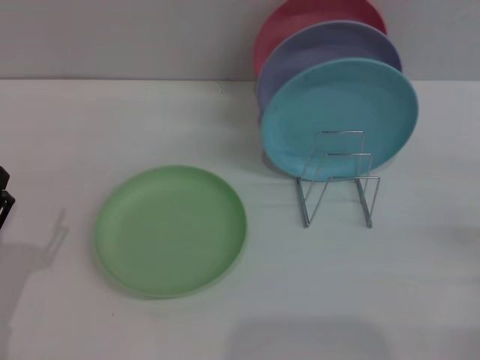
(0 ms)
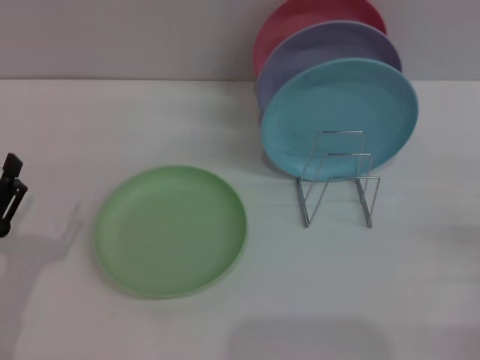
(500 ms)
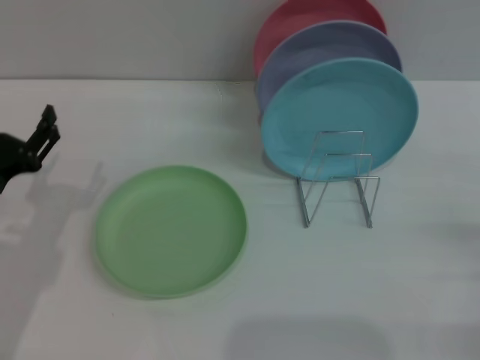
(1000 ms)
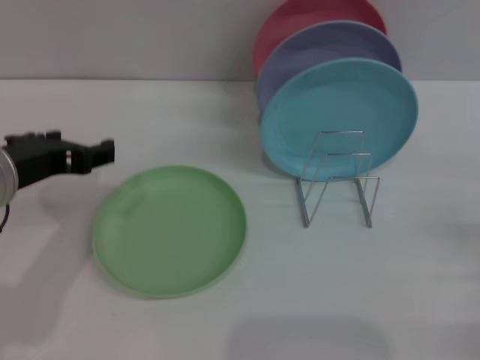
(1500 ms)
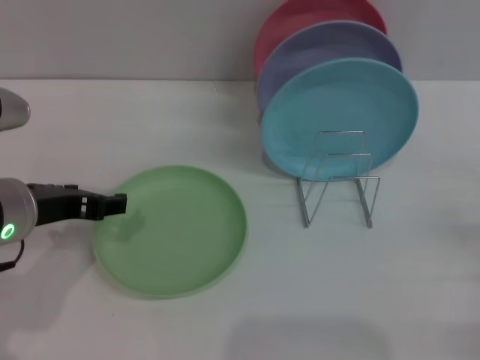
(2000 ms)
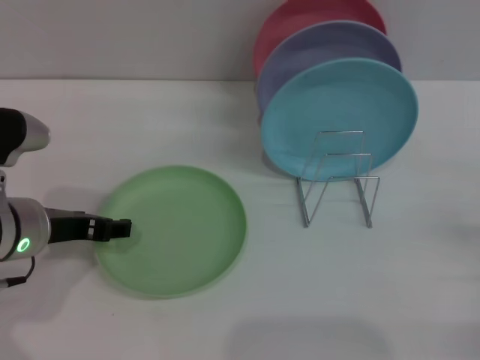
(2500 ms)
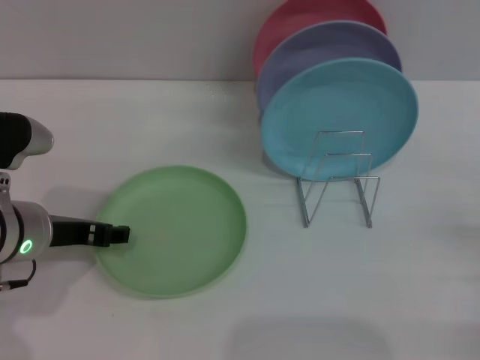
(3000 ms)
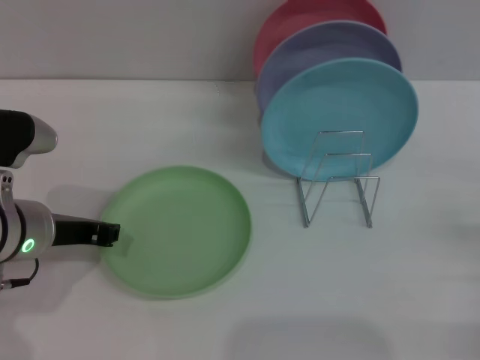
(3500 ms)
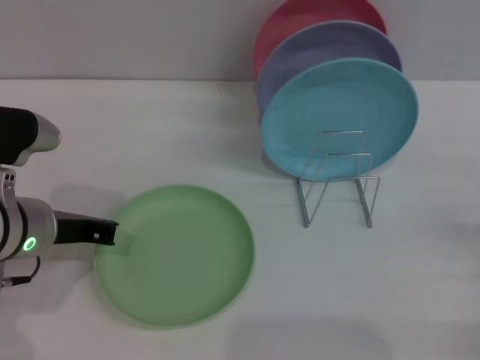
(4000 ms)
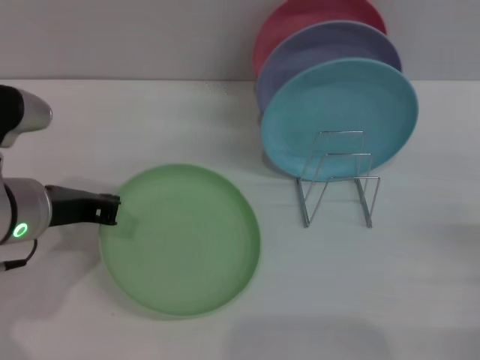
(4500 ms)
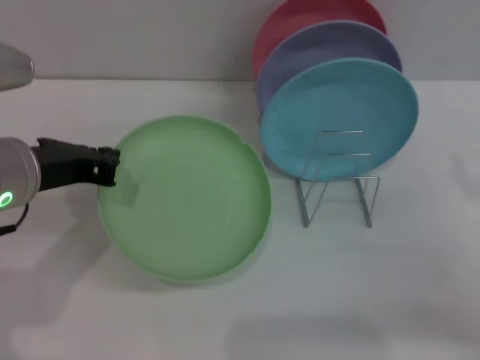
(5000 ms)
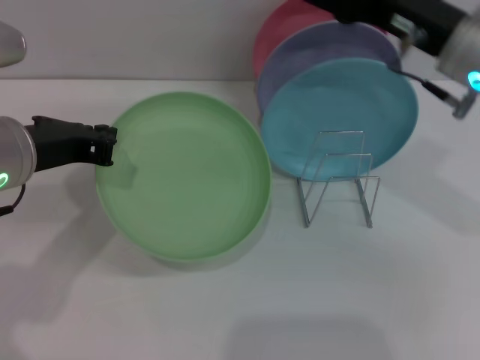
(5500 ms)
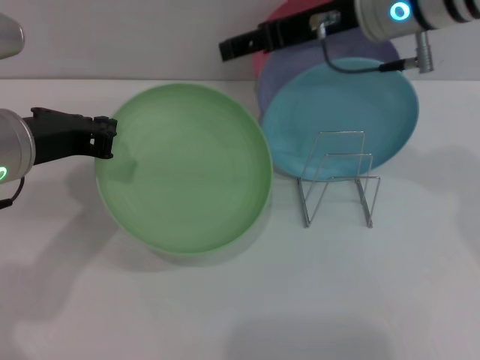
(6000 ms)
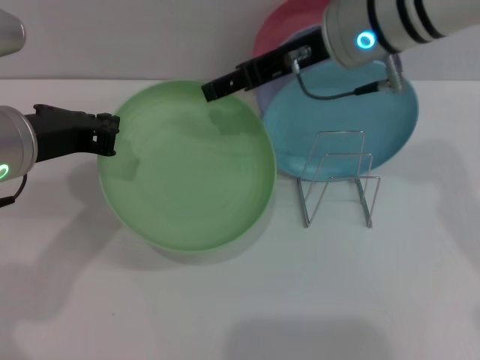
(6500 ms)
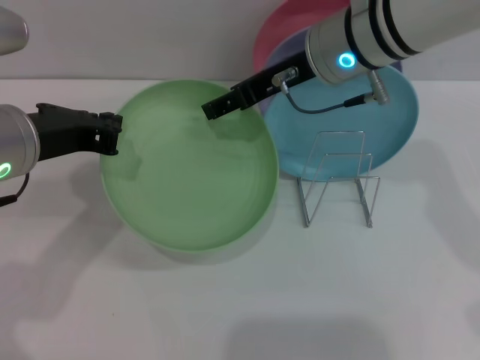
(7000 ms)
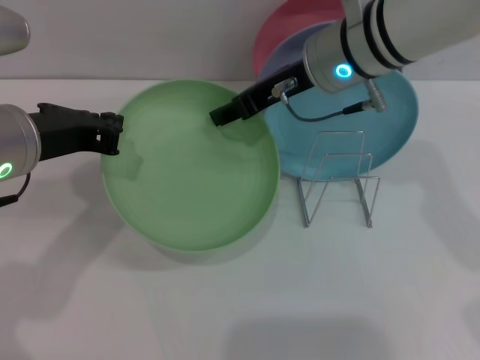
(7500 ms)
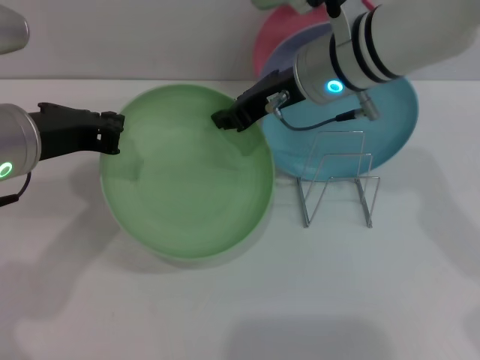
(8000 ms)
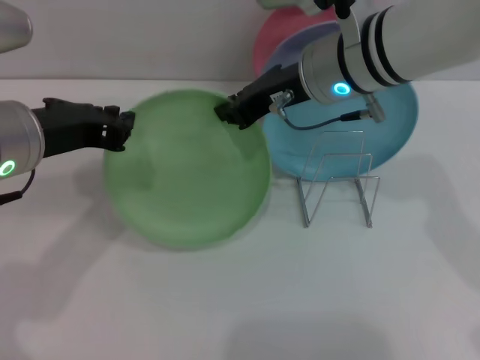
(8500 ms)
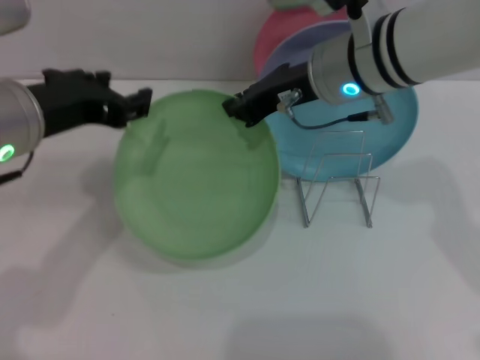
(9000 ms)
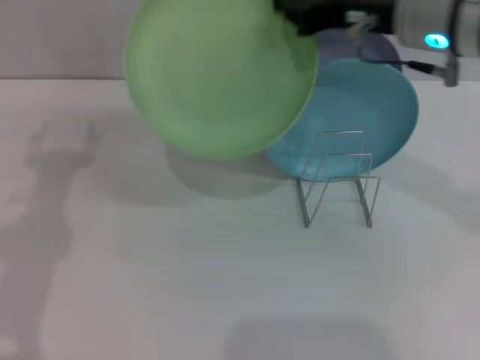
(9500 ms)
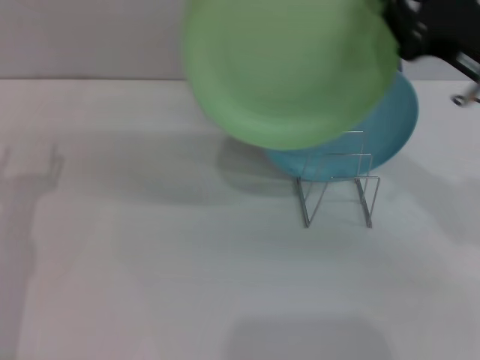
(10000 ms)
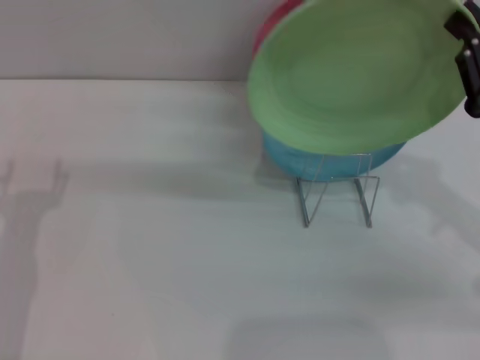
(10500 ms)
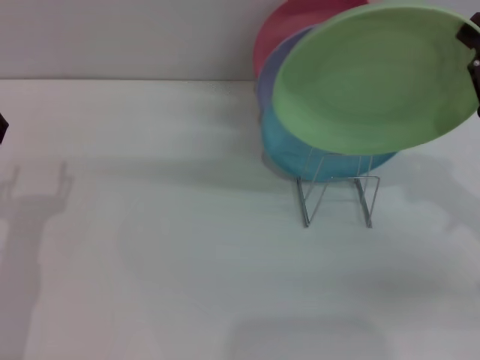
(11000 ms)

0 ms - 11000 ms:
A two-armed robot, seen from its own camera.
Task of the whole recording: Grip the plate with one hand, pass it to the other, then set it on the shelf.
Step, 0 ms - 4500 ms: Pick up the plate with the left gripper.
Step, 5500 ms - 9000 ms: Pass the plate from the left gripper to the right gripper.
0 ms - 2000 ms: The left gripper heads upward, forward and to the right, covering some 20 cm.
2000 ms - 3500 ms: The left gripper closes.
3500 ms - 5500 ms: The right gripper heads upward, to the left and forward, covering approximately 30 cm, while the left gripper shifts some 10 cm upward, and closes its fingers.
5500 ms - 7500 ms: The right gripper moves to the left and forward, some 10 cm.
7500 ms - 9000 ms: The right gripper closes. The left gripper opens up.
9000 ms - 11000 ms: The right gripper is displaced to the right and backward by roughly 25 cm; the left gripper is displaced downward, to the left and backward by some 15 cm, and opens its fingers.

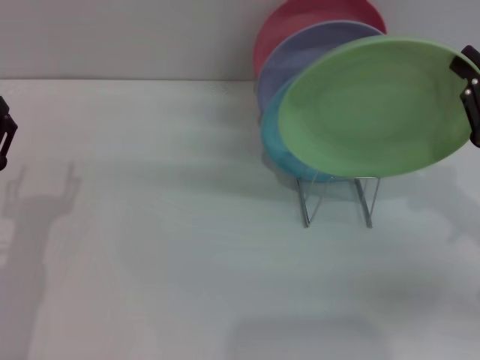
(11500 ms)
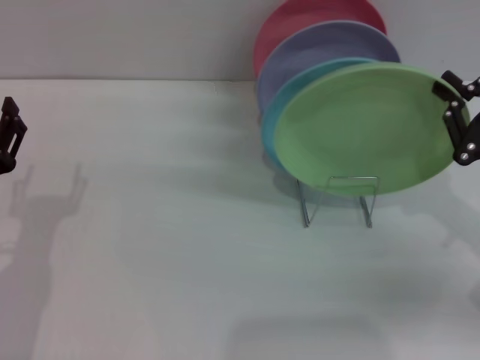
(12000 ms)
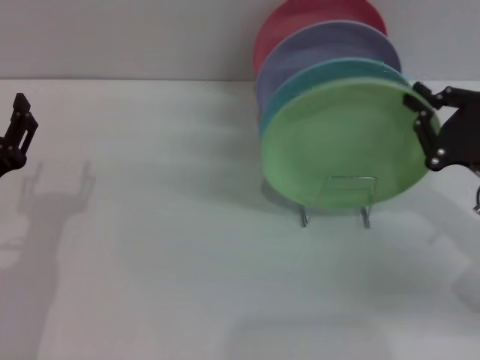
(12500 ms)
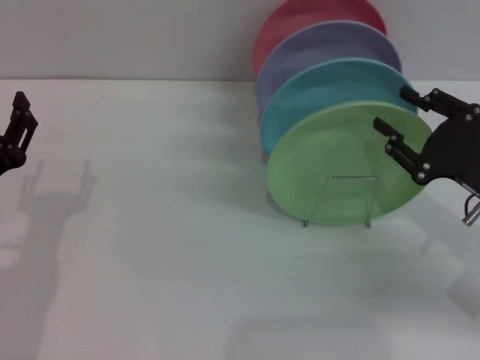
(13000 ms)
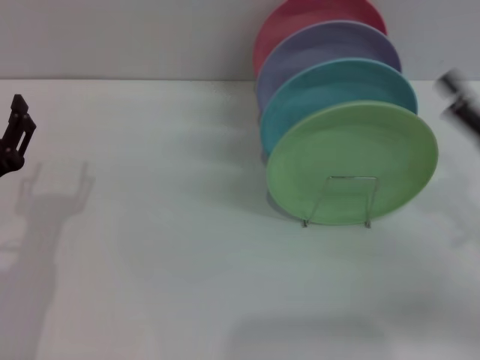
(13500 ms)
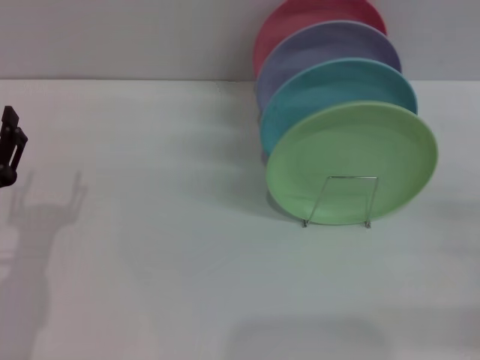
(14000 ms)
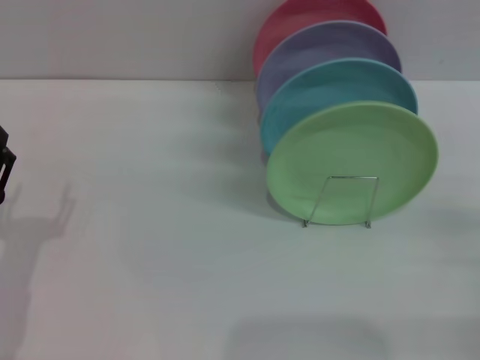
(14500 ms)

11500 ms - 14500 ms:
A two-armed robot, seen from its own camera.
Task of the whole recording: Grip the plate with one hand, pass it to the other, then set it on the shelf.
11500 ms - 13000 ms: The right gripper moves about 5 cm, and opens.
13000 ms - 14500 ms: The right gripper is displaced to the right and backward by about 10 cm, and opens; the left gripper moves roughly 5 cm.
